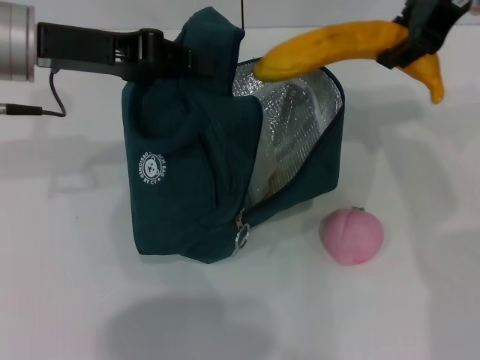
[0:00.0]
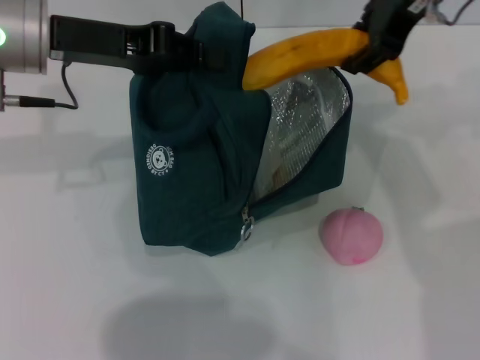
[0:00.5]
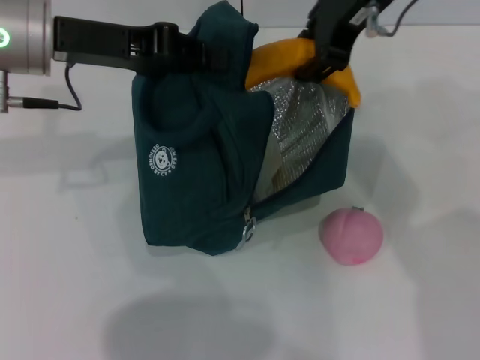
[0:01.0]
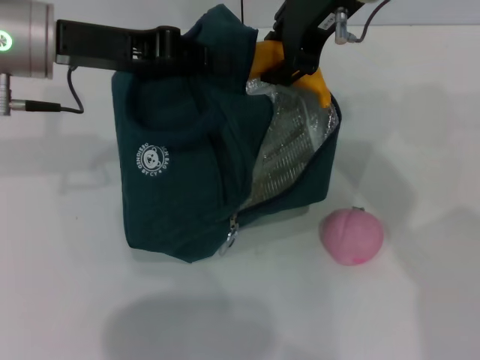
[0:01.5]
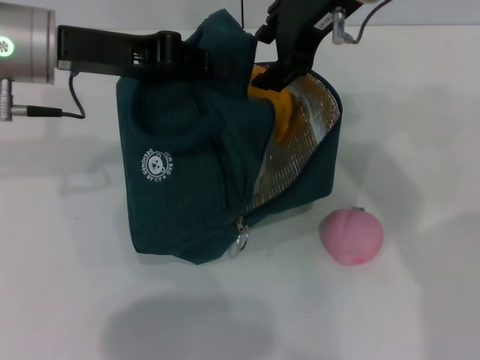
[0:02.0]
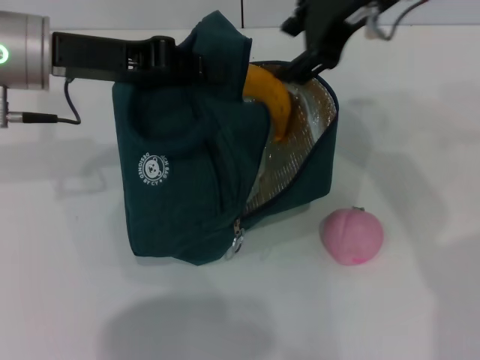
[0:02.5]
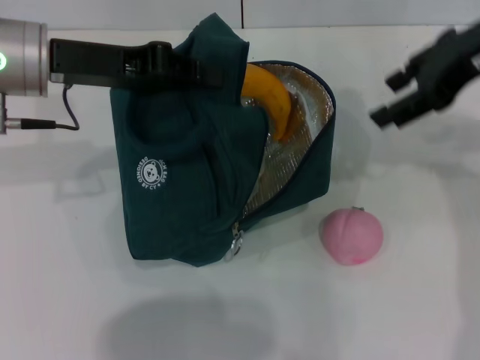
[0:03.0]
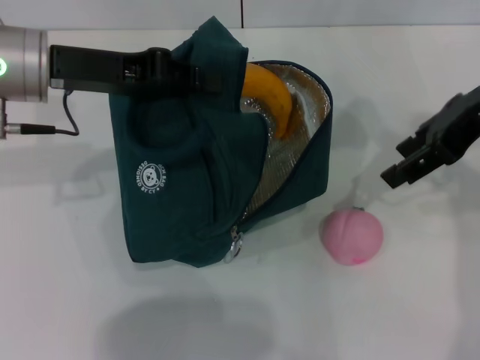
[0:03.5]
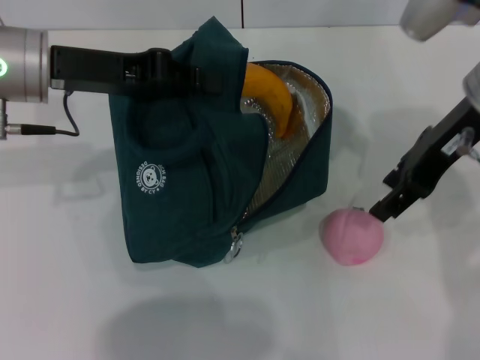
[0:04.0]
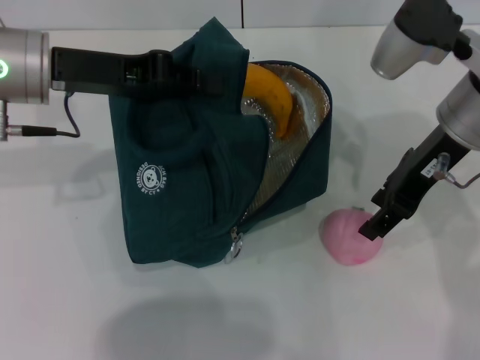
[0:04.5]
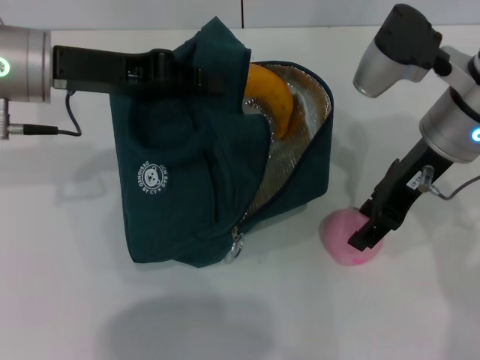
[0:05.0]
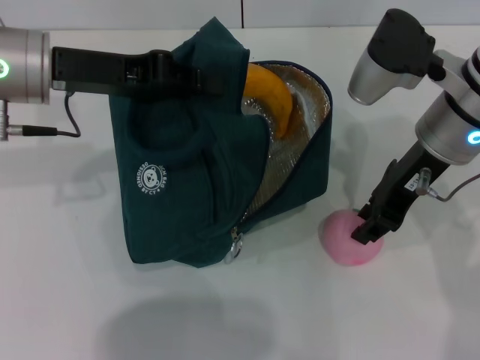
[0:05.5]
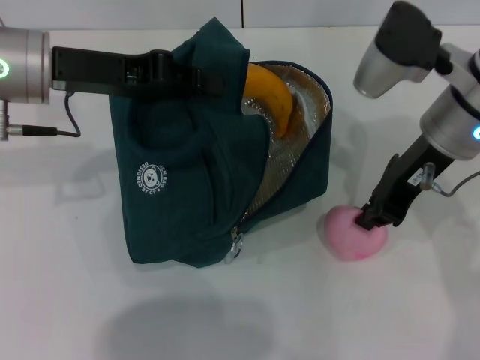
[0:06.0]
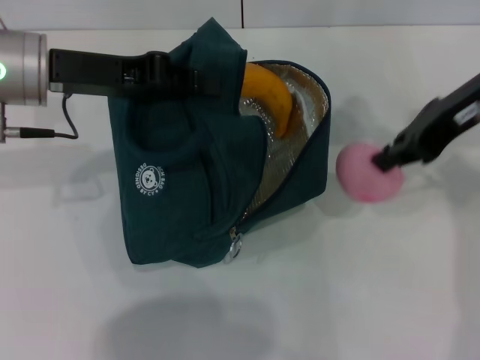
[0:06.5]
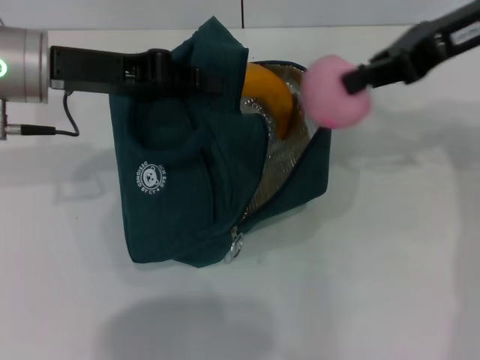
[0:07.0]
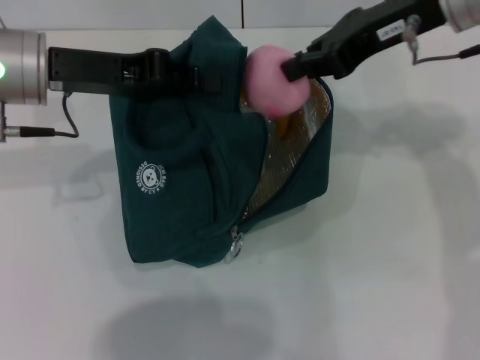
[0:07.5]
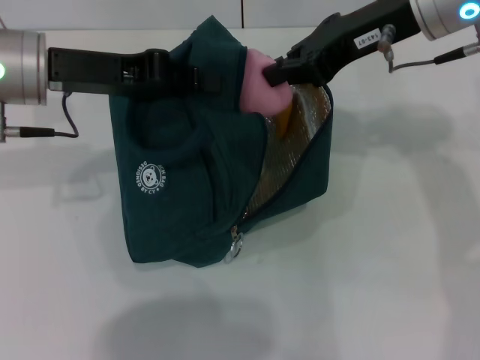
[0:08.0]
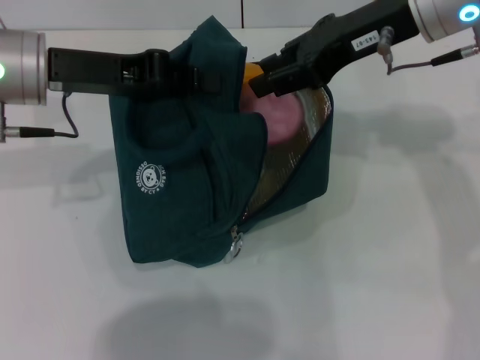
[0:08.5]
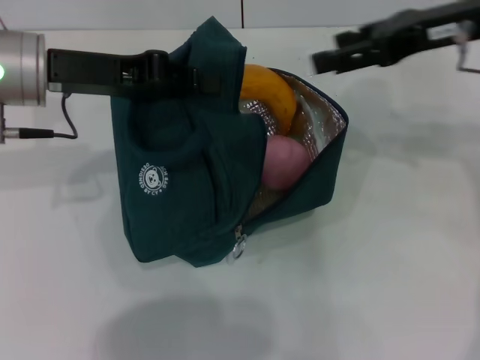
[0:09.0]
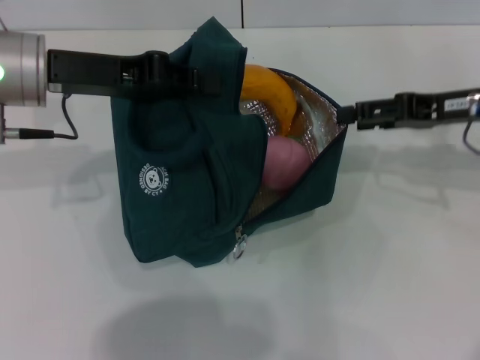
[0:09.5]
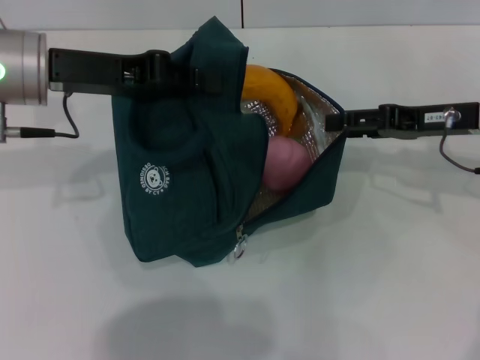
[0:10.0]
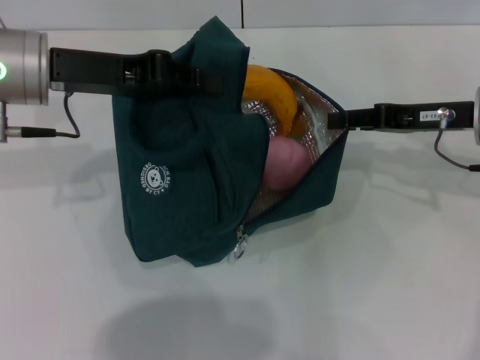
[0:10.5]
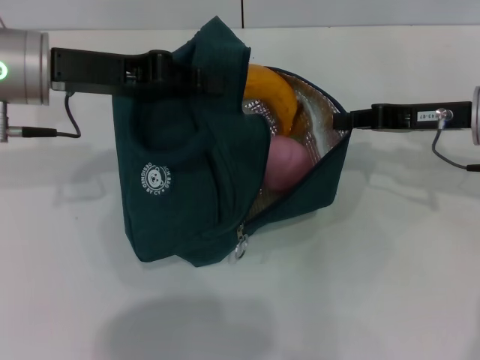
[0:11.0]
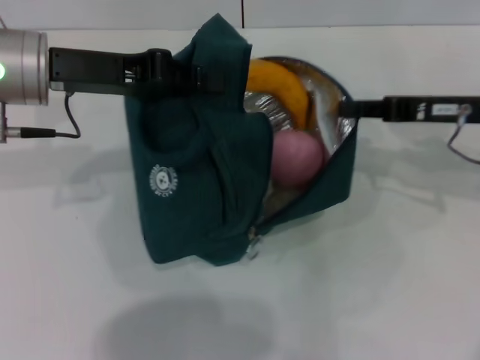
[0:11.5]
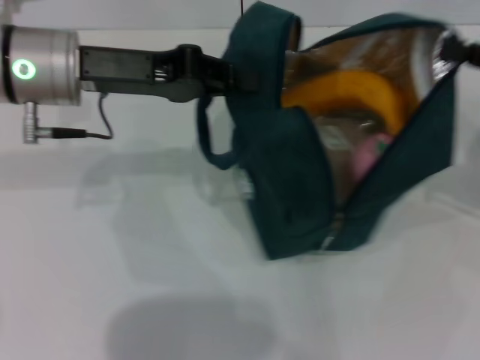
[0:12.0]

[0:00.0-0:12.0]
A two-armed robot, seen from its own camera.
Step, 0.0 to 2.0 s: Put the banana into the lunch bag with your right hand.
Step, 2.5 to 5.5 s: Grab the peach with your right hand.
0.0 to 2.0 s: The right gripper travels to the left by about 10 cm.
2.0 to 4.0 s: The right gripper moves to the right and downward, approximately 15 cm.
4.0 to 6.0 s: The right gripper closes.
6.0 to 8.0 s: The right gripper travels upward by about 5 cm.
8.0 to 10.0 s: The right gripper travels downward and to the right by about 15 cm, and opens its fingers.
10.0 to 12.0 s: The right gripper goes roughly 10 cm to the right, upward and backward, and closes.

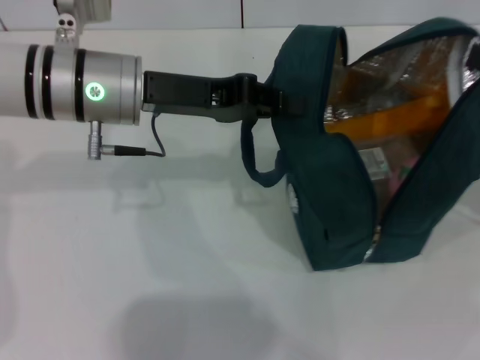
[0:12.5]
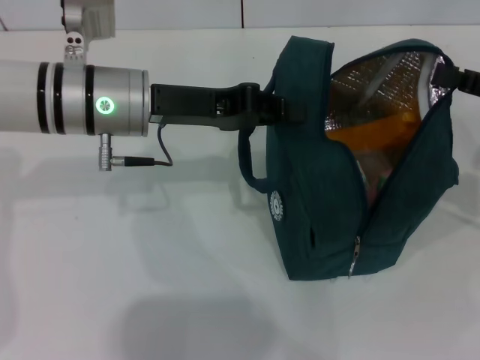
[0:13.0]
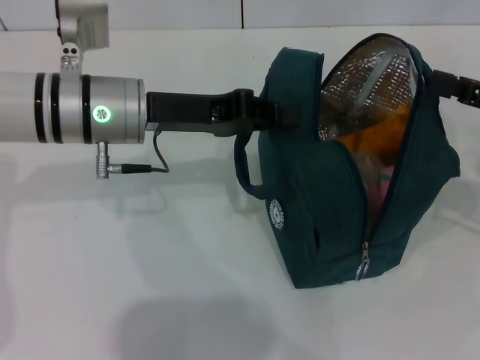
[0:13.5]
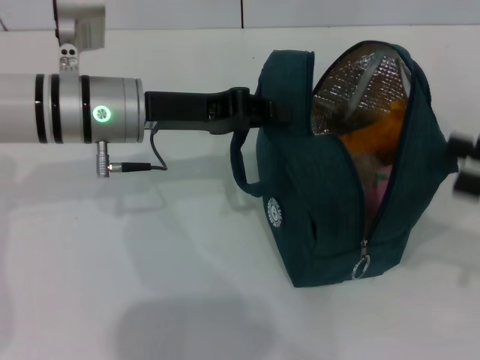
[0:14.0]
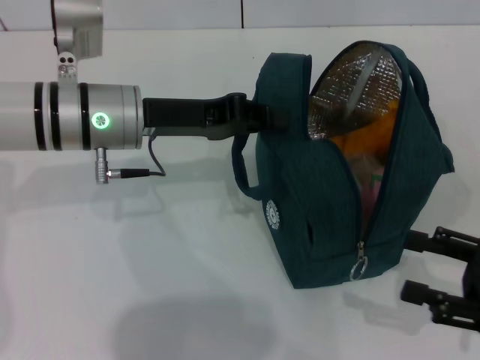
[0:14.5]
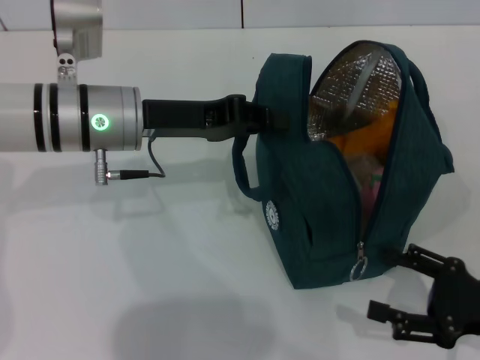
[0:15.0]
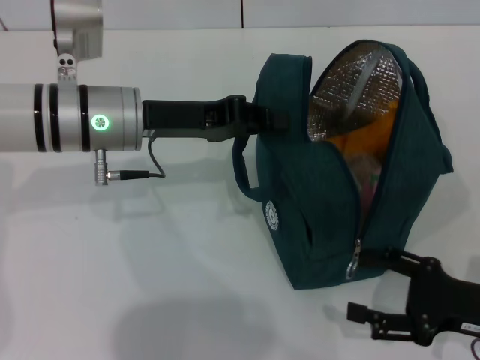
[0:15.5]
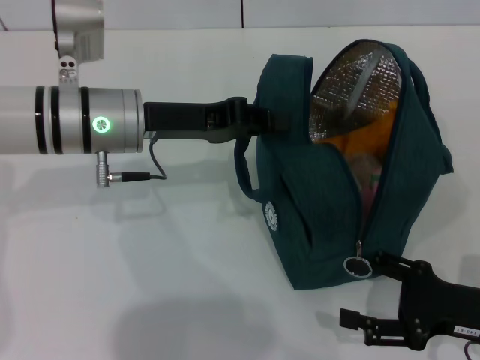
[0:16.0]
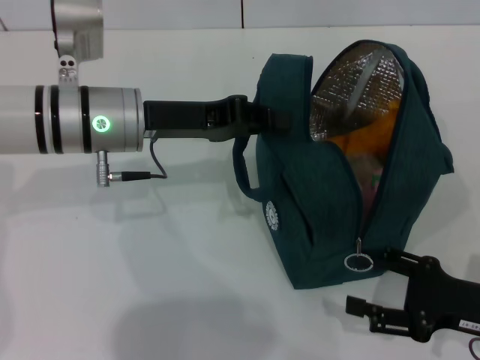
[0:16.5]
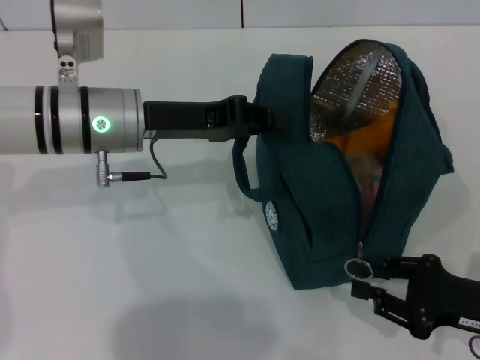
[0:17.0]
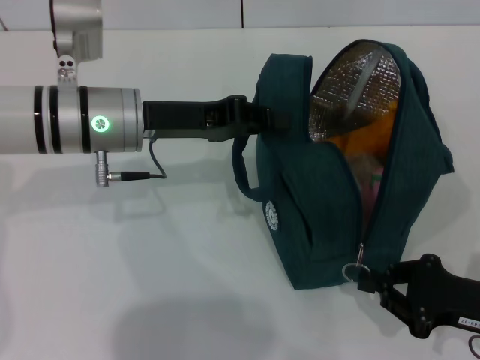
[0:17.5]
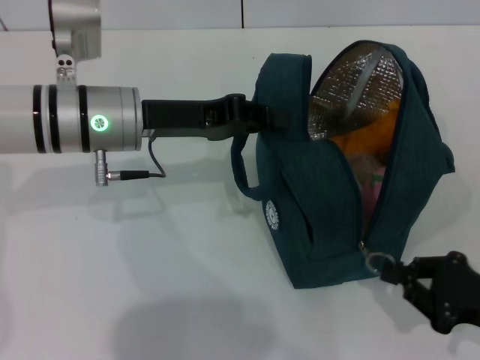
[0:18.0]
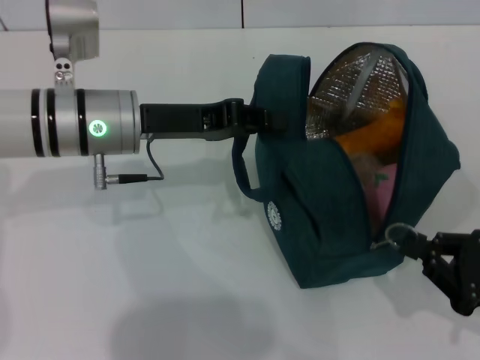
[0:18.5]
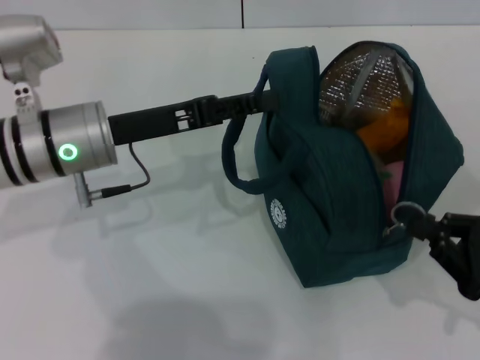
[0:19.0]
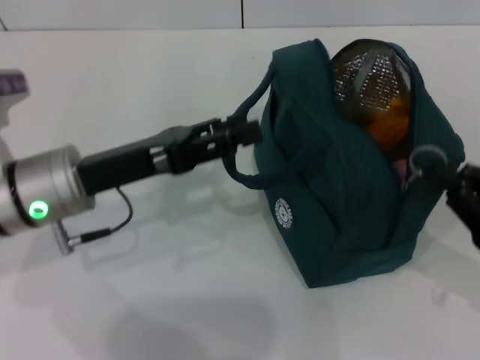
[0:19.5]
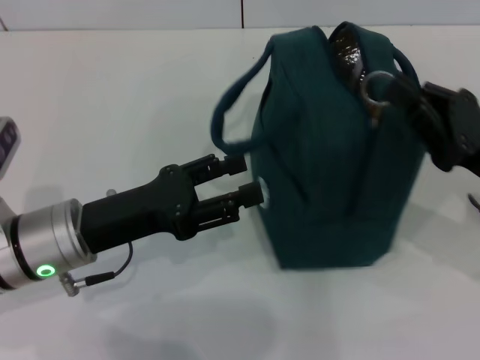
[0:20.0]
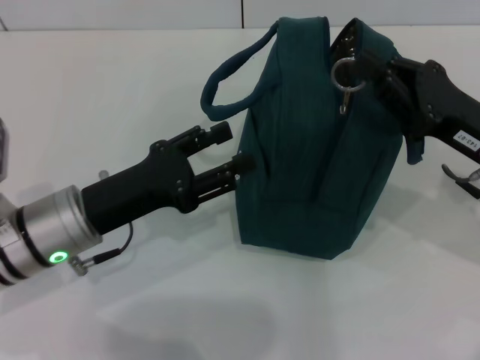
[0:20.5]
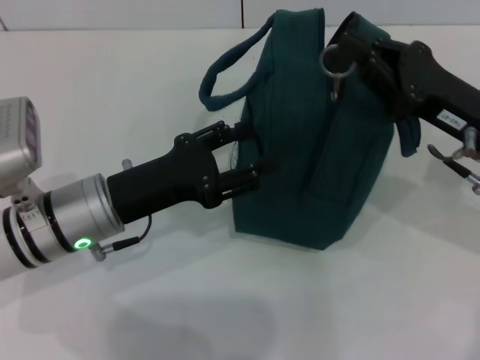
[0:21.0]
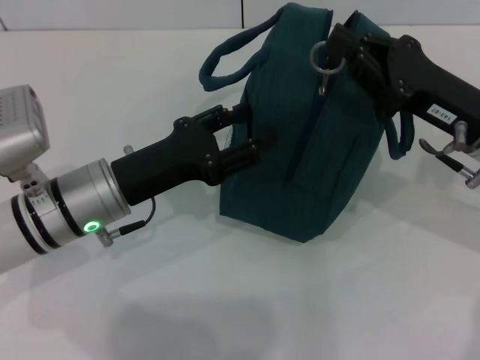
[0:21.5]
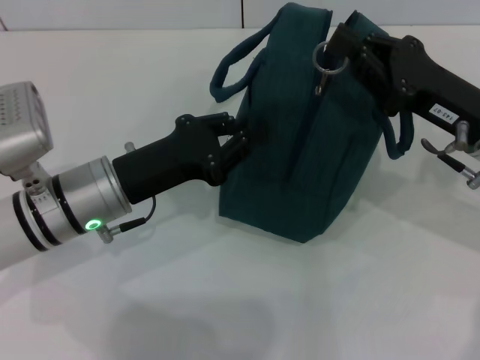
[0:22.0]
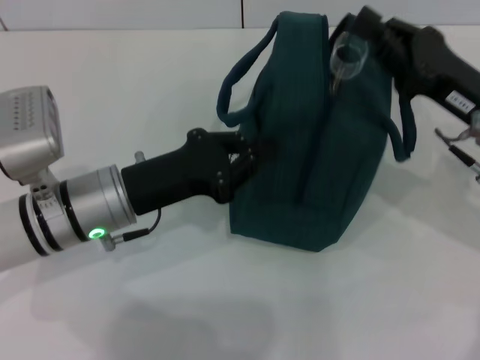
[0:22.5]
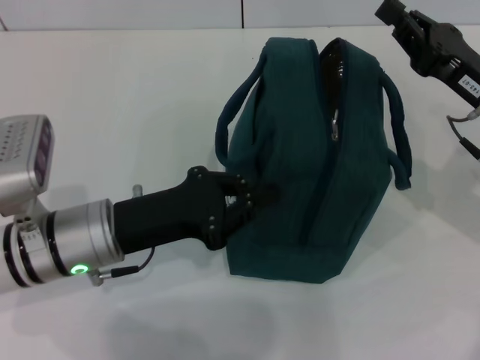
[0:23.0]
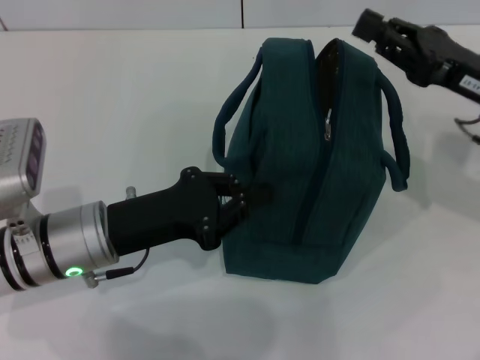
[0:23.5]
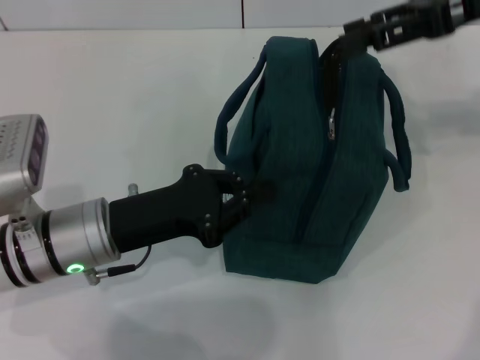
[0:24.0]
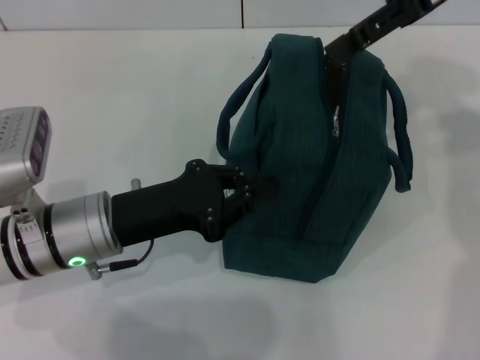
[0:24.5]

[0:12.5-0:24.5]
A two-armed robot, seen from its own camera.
Step, 14.0 to 19.0 s: Hold the lunch bag with your left hand.
12.5 to 14.5 s: The right gripper travels downward and backward by about 15 cm, and opens.
14.5 to 16.5 s: The right gripper changes place by some 5 cm.
16.5 to 18.5 s: The right gripper closes.
18.5 to 20.5 s: The left gripper shifts approximately 10 cm backward and downward, and opens. The right gripper moves forward, upward and to the left, approximately 15 cm.
20.5 to 22.5 s: The left gripper closes.
22.5 to 24.5 s: The right gripper moves upward and forward, roughly 20 cm, and opens its fingers.

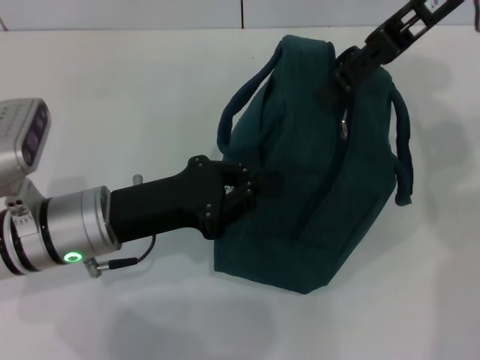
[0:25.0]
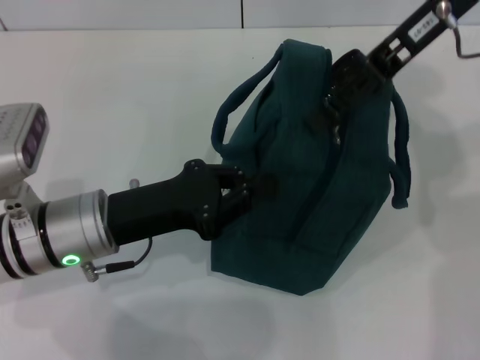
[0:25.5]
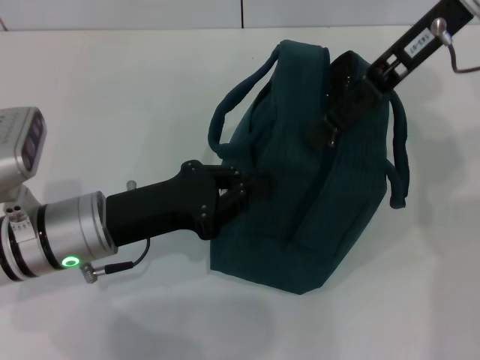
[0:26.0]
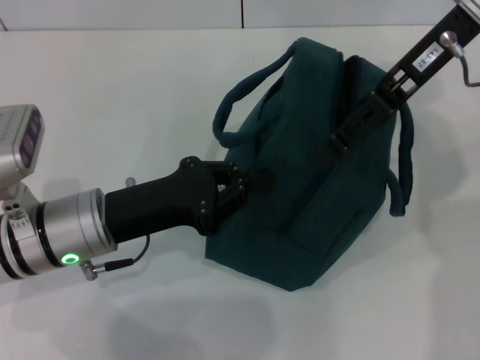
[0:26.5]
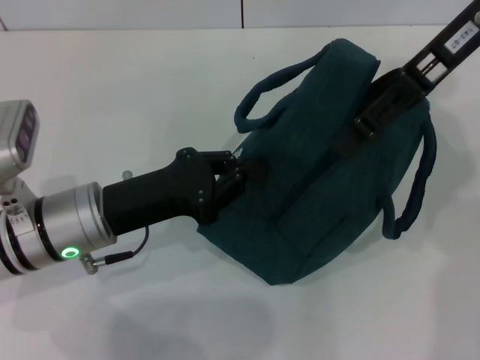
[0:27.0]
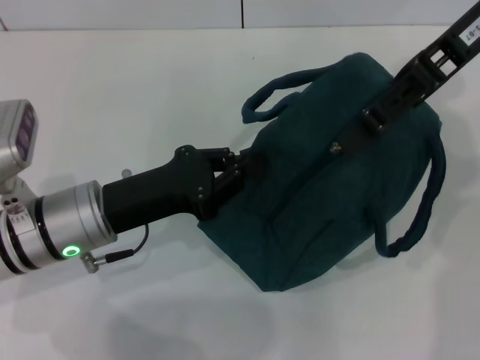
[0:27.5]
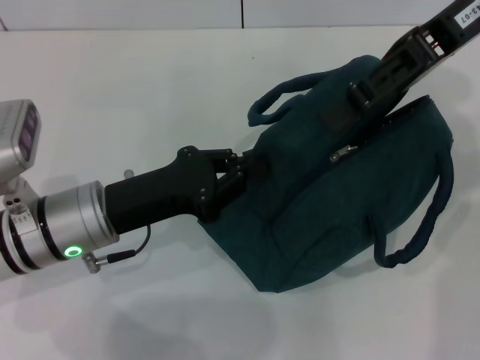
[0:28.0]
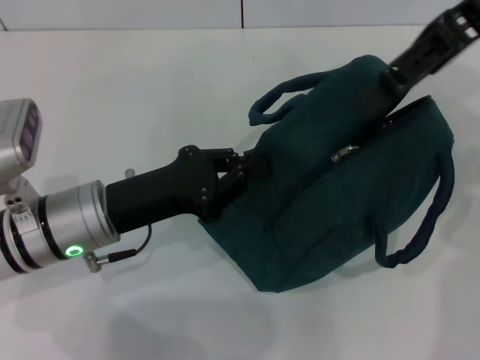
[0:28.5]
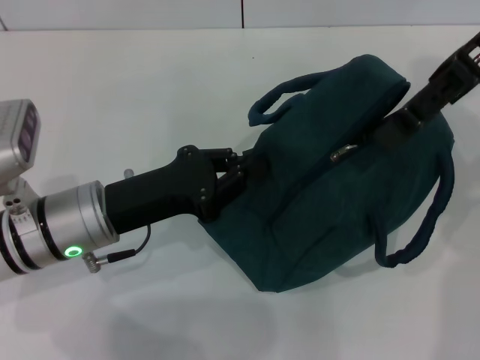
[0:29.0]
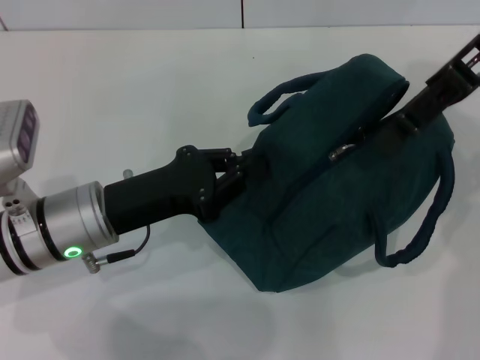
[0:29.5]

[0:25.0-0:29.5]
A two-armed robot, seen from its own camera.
25.0 to 29.5 s: The grippers move only a little.
